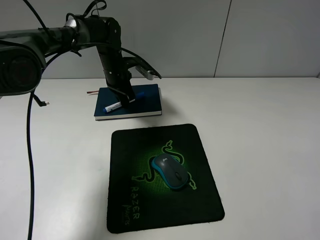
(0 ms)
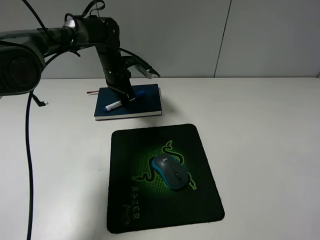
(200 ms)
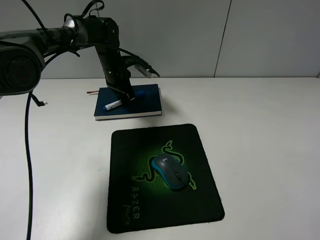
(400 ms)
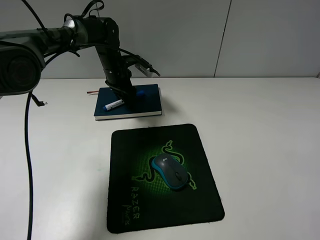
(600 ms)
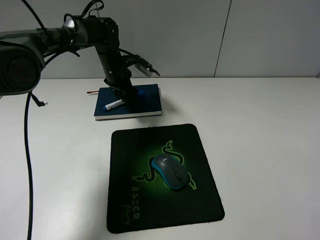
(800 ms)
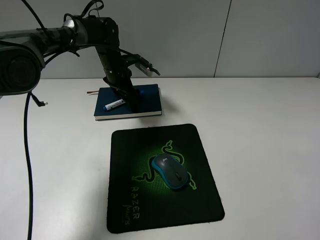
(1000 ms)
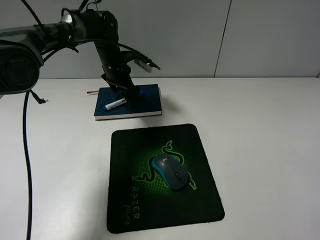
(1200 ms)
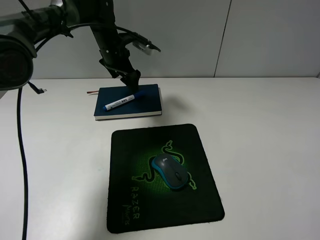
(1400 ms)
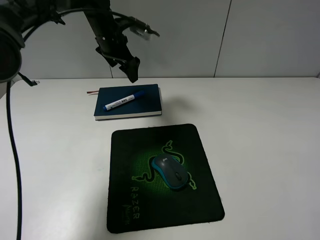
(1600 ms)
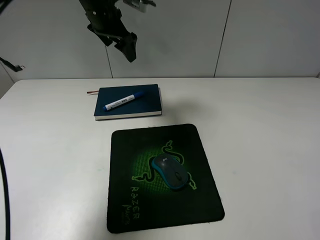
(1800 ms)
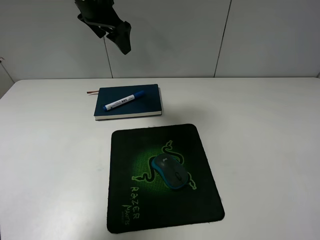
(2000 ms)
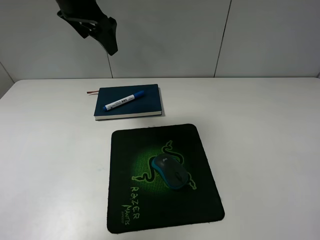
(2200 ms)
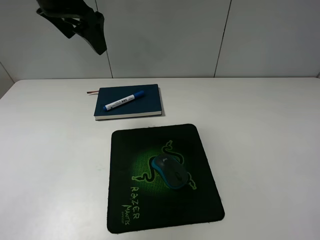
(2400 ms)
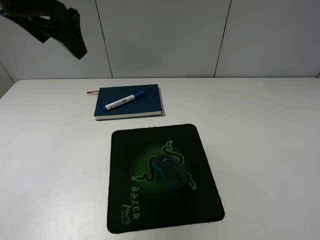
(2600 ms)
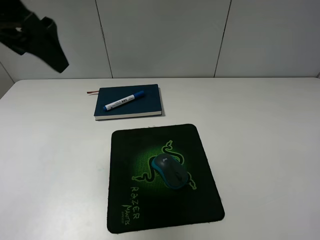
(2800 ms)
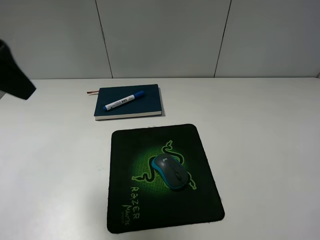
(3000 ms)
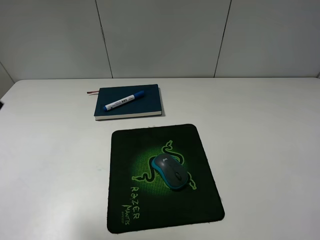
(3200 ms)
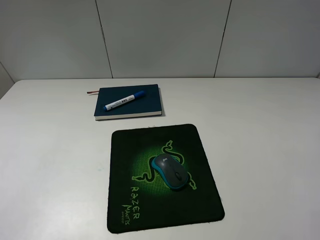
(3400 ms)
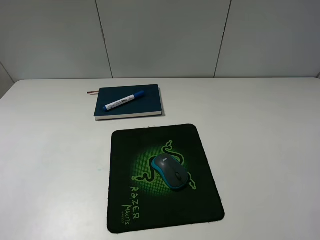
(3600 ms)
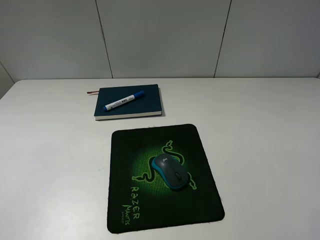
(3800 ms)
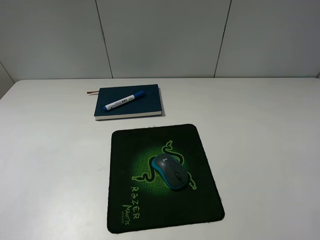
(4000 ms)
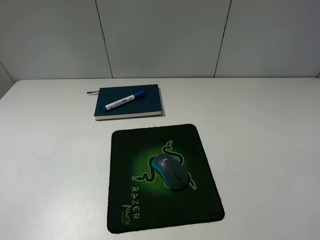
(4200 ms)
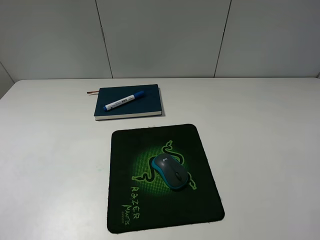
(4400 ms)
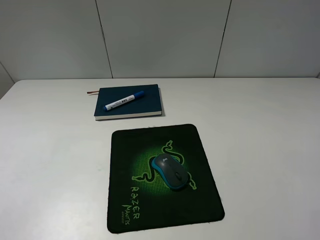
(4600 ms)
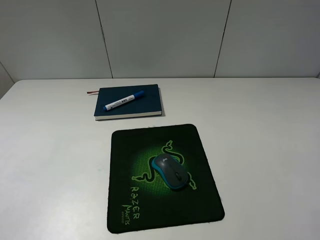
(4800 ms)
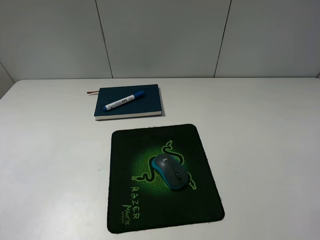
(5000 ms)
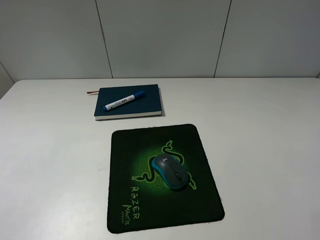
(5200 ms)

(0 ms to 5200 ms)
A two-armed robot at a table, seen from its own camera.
0 ms - 1800 ms: The left gripper heads upward, covering about 15 cm, and opens its fingers.
1800 ms - 3400 ms: The left gripper moves backward, roughly 40 cm.
